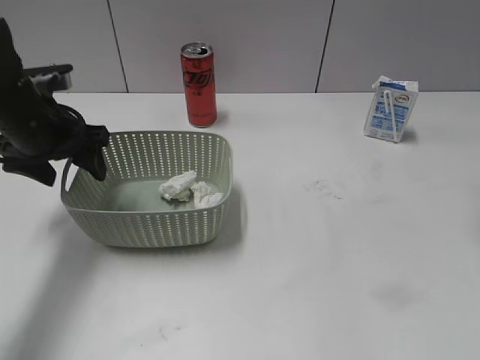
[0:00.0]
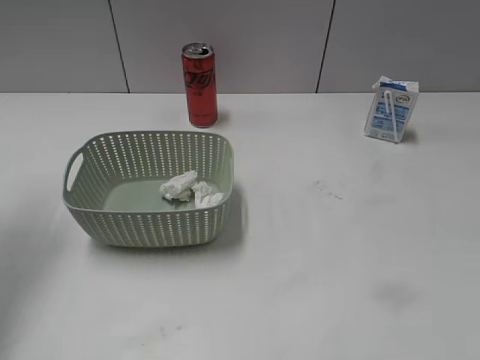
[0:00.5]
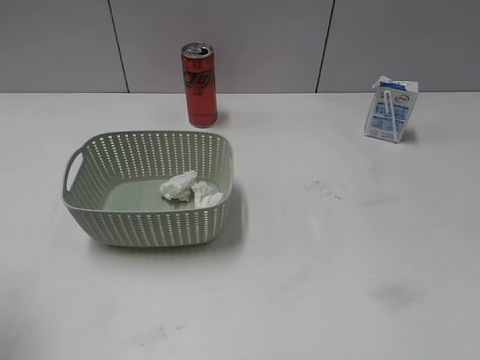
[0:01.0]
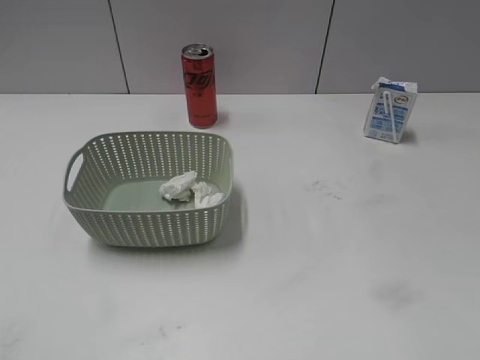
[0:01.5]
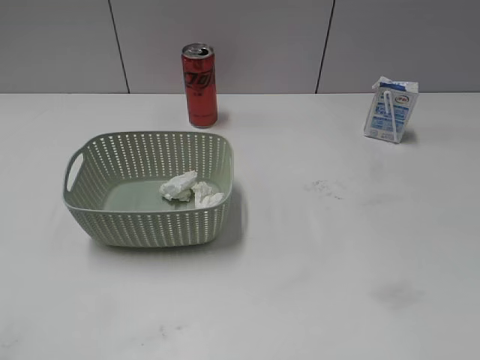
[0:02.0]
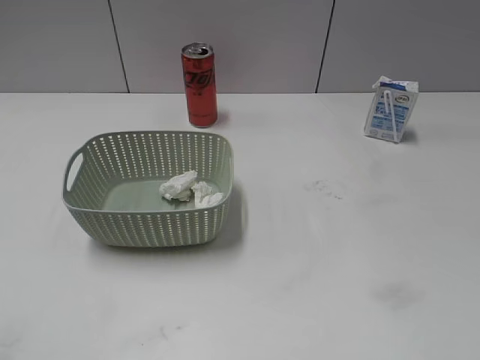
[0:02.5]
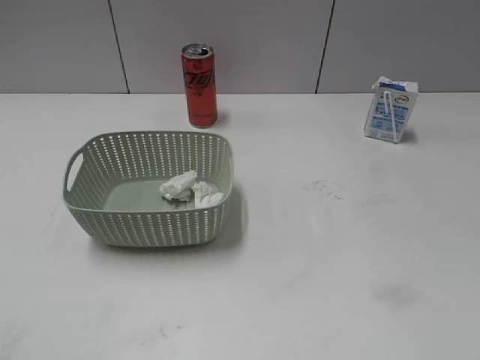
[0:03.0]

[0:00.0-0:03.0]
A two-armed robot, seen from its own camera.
0:00.0 to 0:01.5: The left gripper goes some 30 cm backward.
